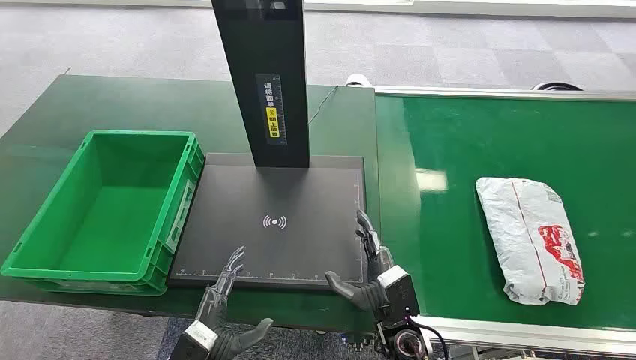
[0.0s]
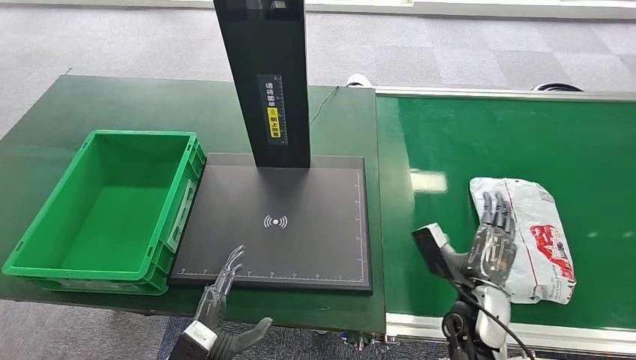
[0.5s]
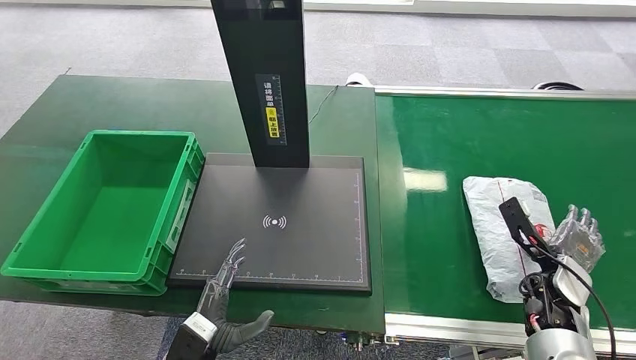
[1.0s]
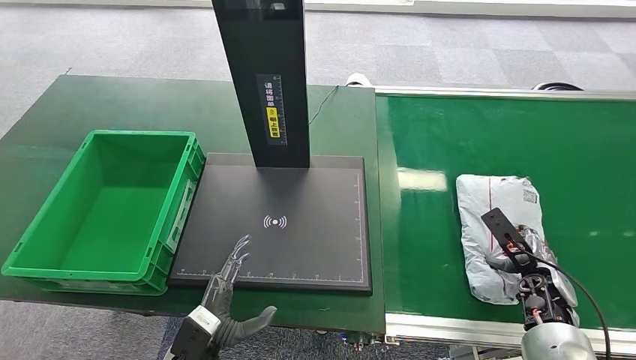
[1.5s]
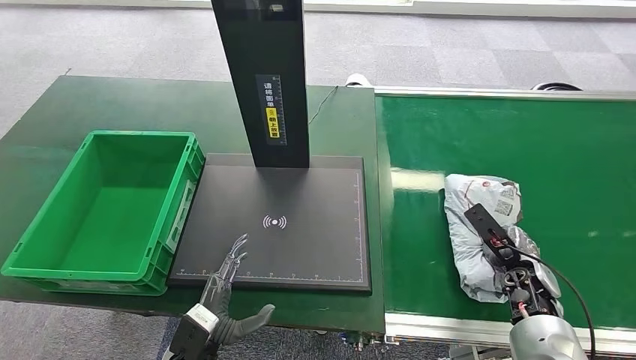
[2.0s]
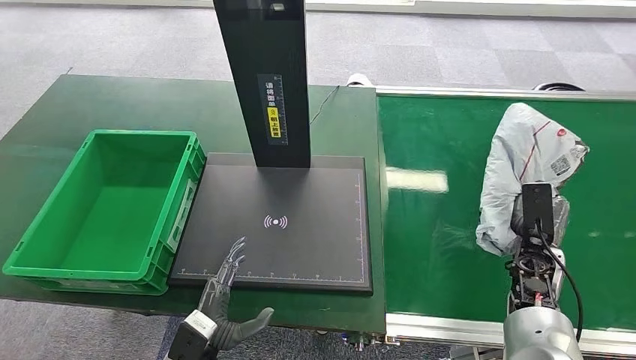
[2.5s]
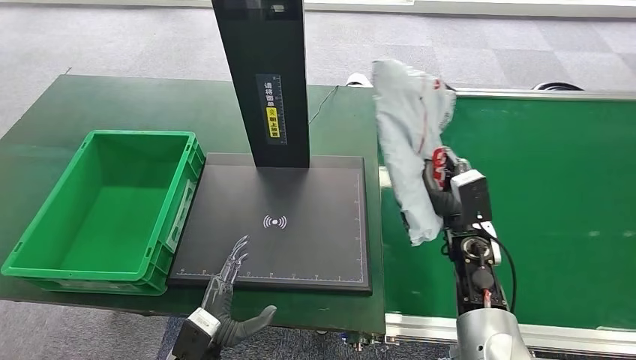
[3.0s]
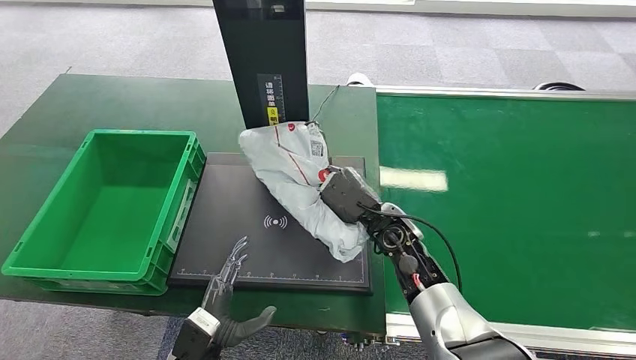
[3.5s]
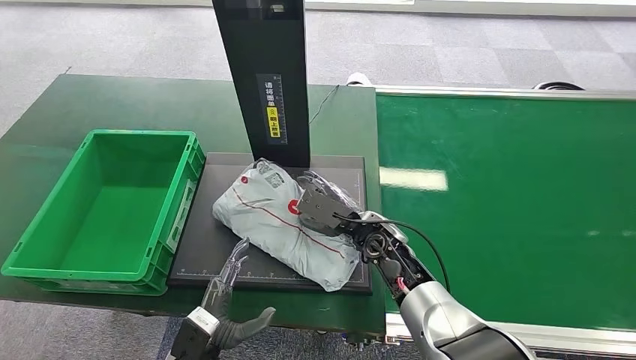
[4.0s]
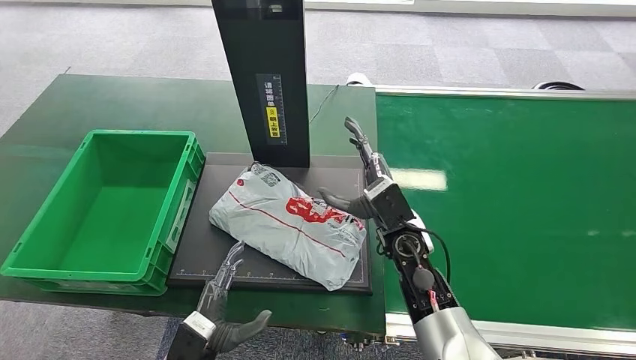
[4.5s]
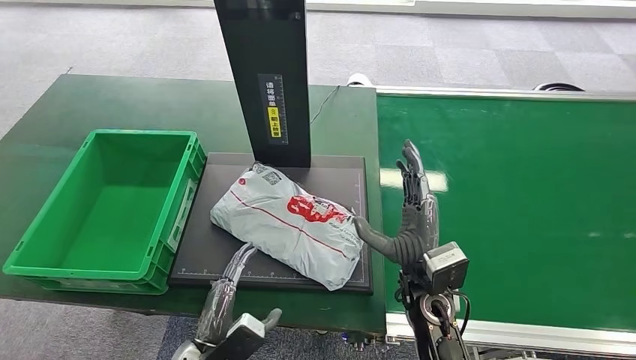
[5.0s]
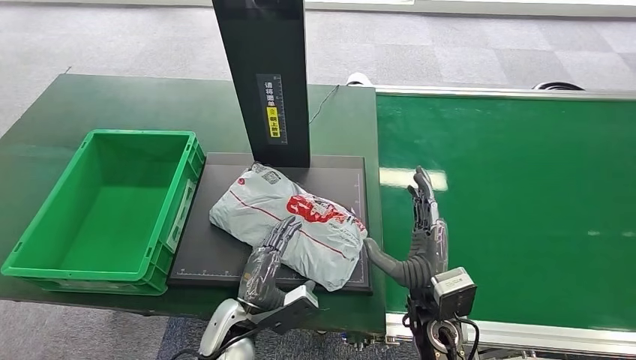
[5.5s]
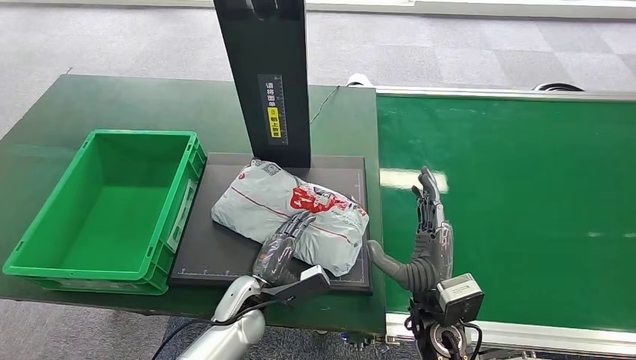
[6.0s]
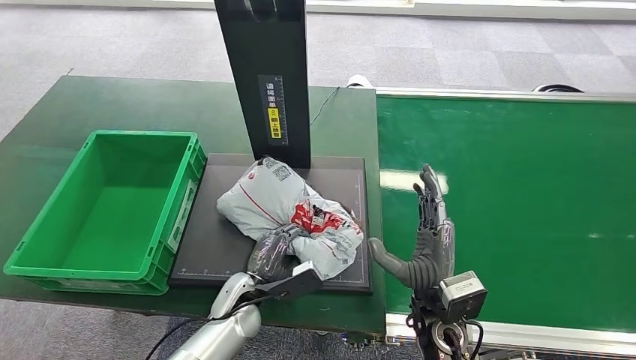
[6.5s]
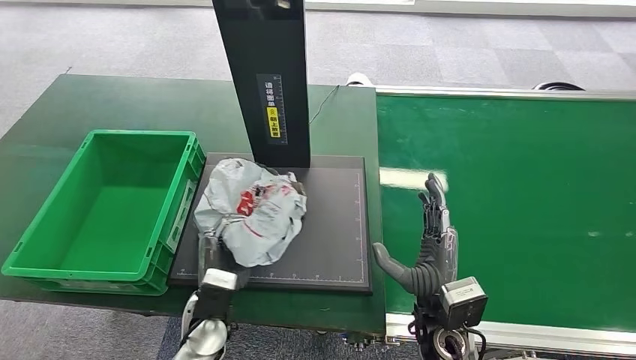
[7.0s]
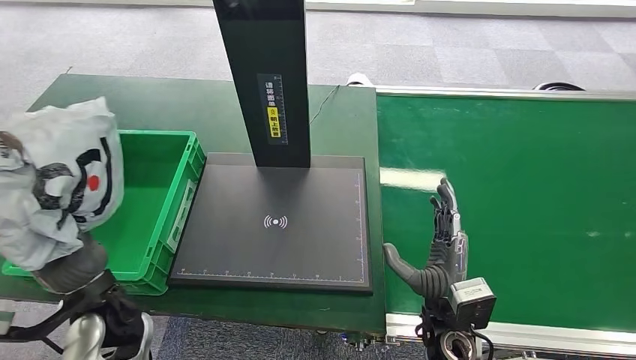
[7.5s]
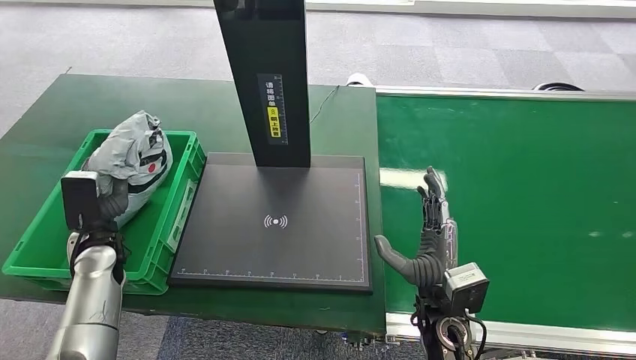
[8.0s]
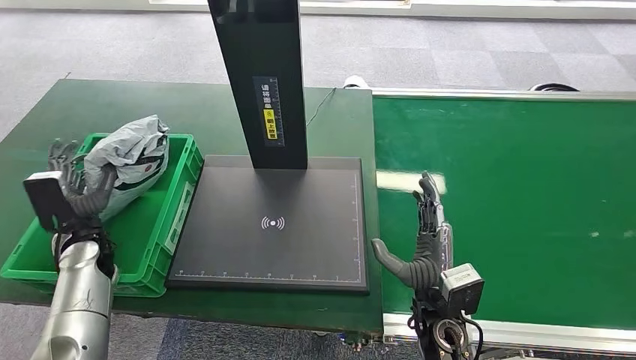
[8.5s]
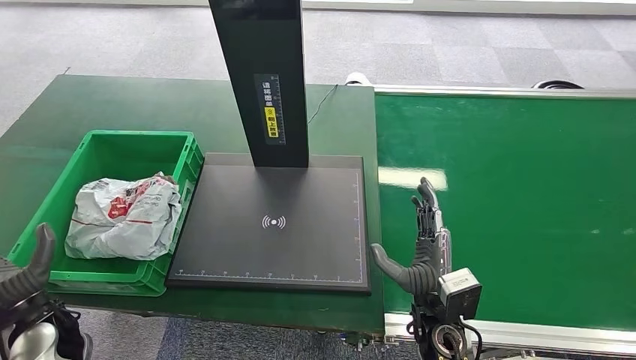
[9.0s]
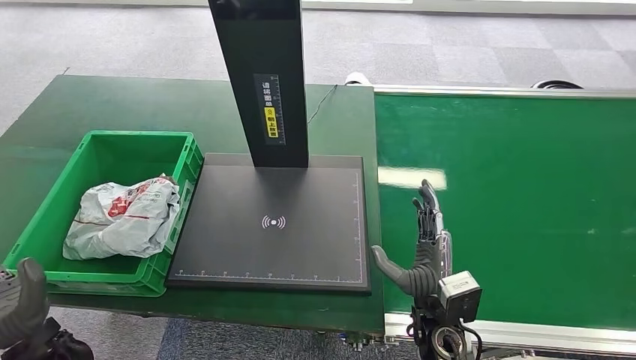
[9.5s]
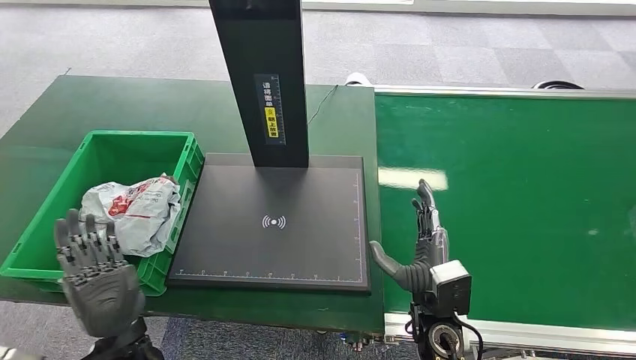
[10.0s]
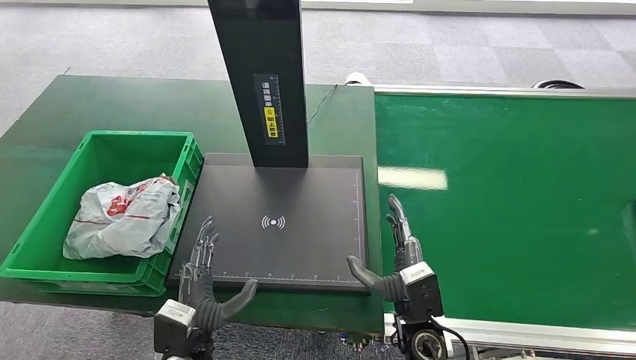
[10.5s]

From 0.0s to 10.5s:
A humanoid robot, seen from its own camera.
Step, from 0.0s to 2.5s: Pick up the package from the conveyor belt.
Step, from 3.5s to 5.0s: Place the package onto the inbound machine.
Step, from 5.5s to 7.5s: Pick up the package from the inbound machine.
Step, from 8.0s to 10.5s: Place the package into the parcel locker.
From 2.0s to 4.0s: The right hand heads to the left, covering about 25 cm.
From 4.0s to 6.5s: The left hand is displaced forward by approximately 10 cm. The right hand shifts approximately 15 cm backward and to the right.
